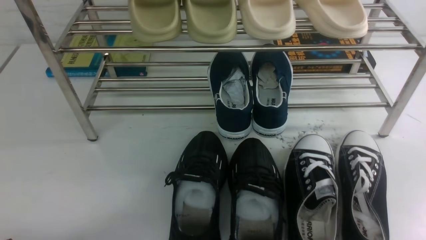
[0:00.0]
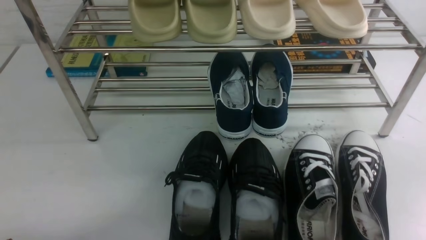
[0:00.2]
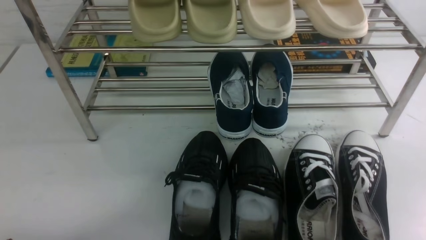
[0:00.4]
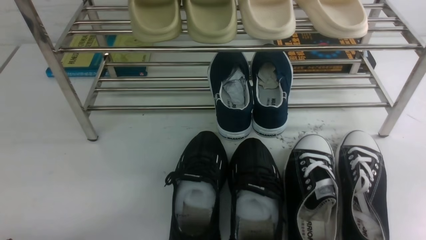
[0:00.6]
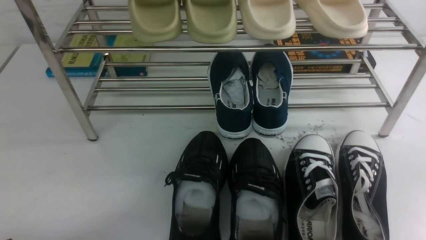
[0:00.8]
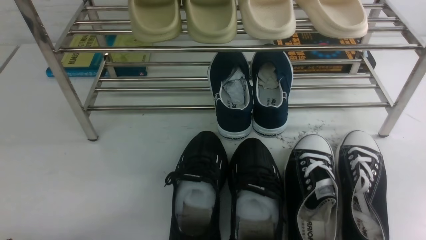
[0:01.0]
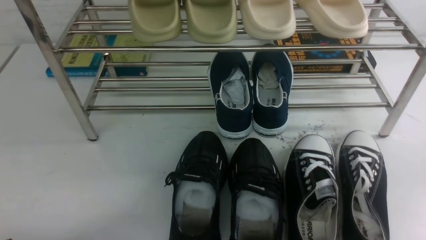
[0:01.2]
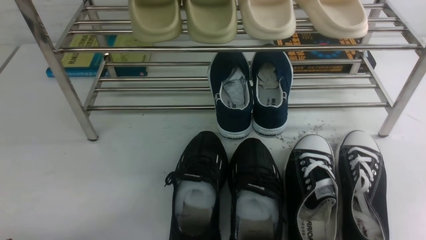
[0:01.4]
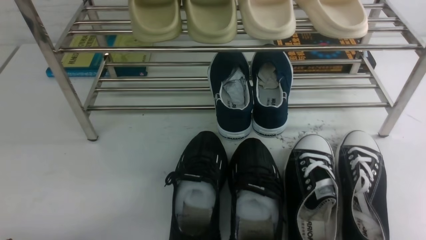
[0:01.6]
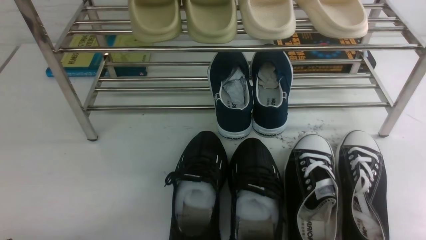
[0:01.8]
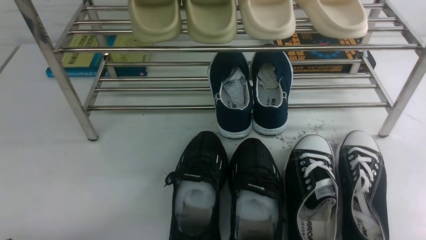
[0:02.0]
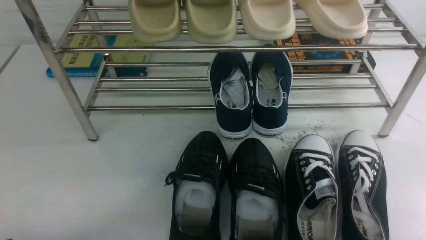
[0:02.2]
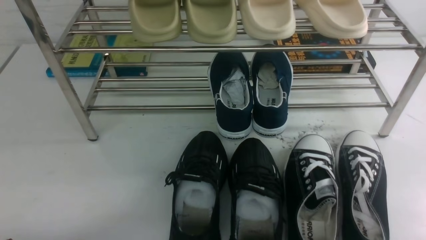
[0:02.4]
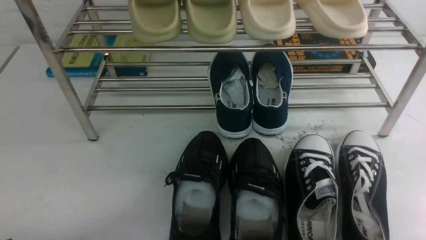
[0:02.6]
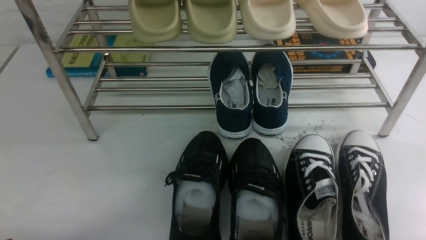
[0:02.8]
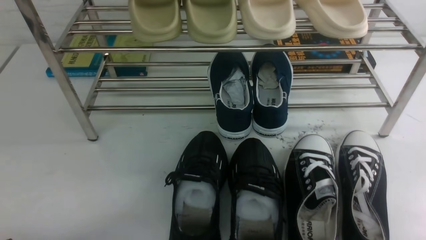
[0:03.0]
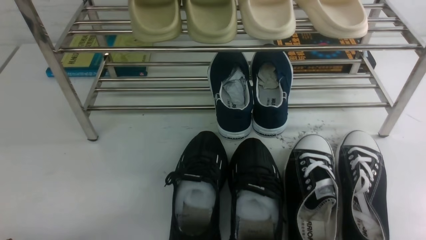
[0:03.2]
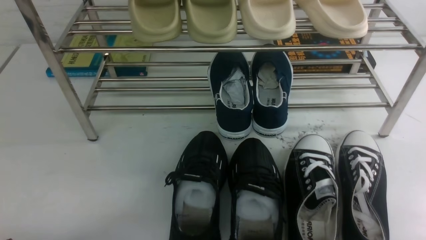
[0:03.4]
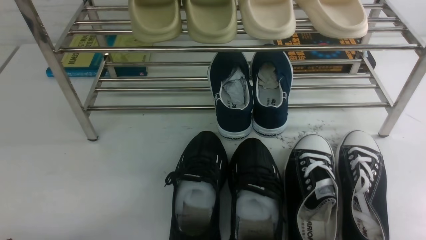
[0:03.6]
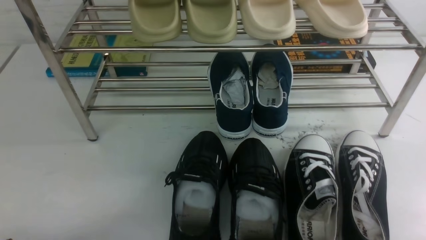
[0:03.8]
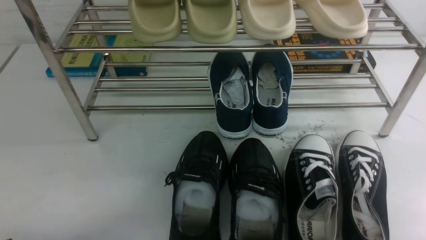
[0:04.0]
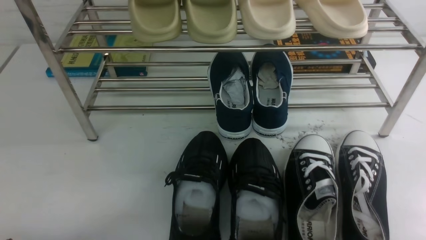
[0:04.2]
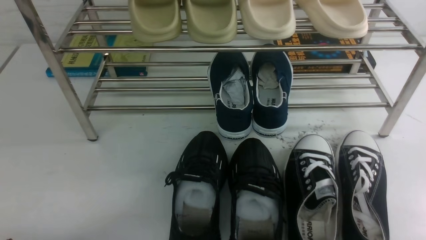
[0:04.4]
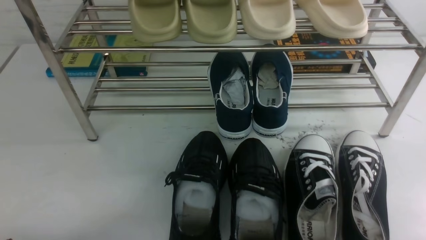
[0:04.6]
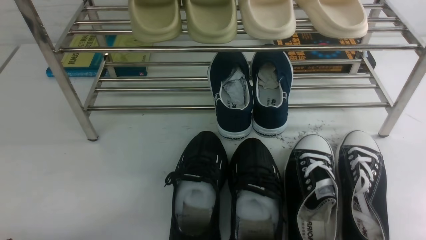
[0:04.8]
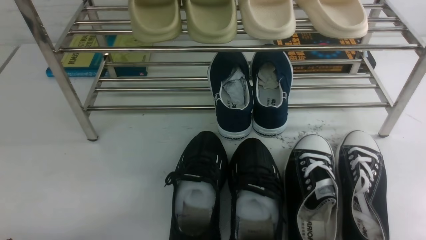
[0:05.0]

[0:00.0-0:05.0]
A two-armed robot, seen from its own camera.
0:03.4 to 0:05.0: Both grippers stay put.
